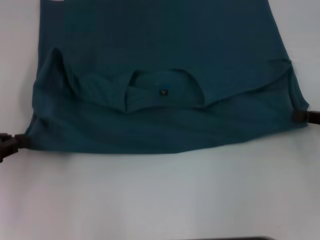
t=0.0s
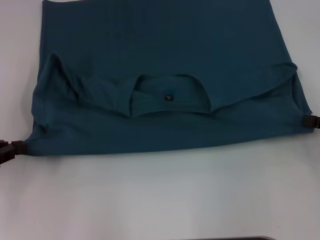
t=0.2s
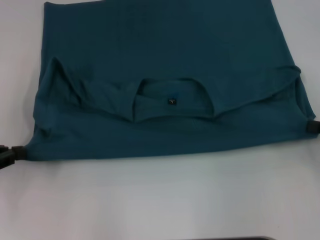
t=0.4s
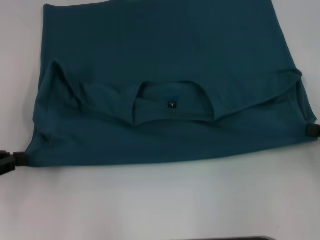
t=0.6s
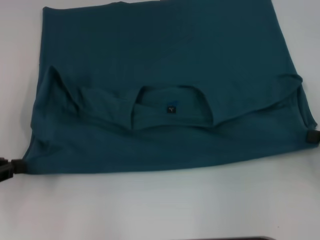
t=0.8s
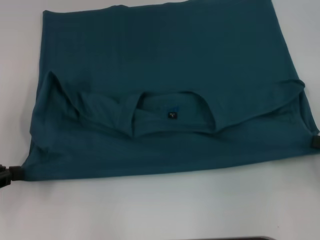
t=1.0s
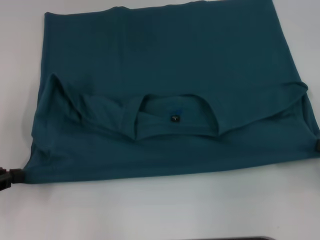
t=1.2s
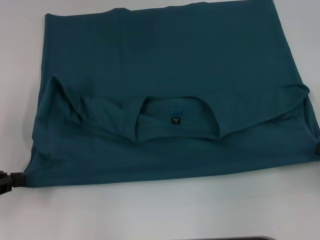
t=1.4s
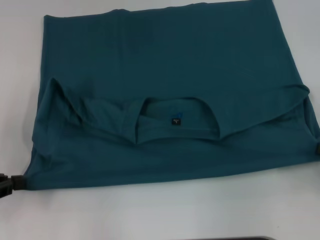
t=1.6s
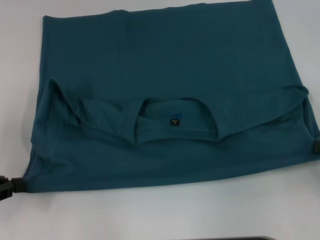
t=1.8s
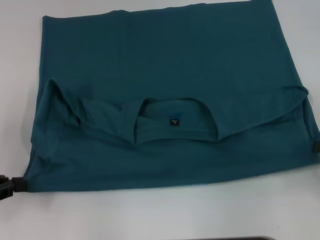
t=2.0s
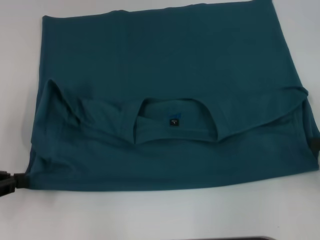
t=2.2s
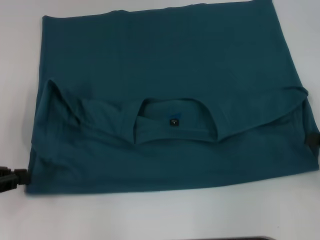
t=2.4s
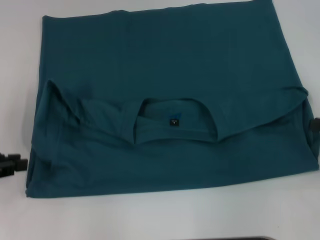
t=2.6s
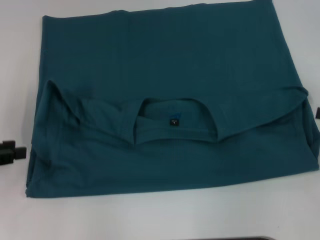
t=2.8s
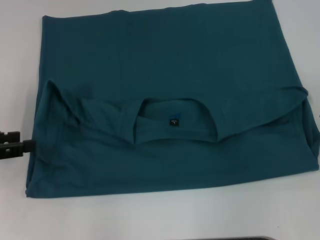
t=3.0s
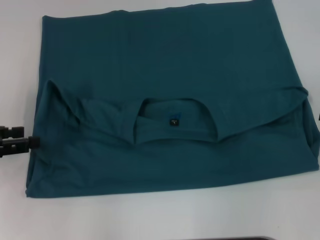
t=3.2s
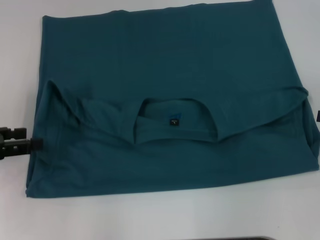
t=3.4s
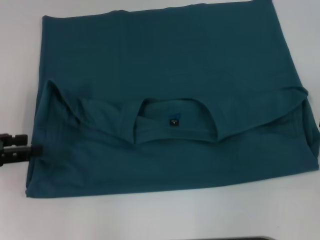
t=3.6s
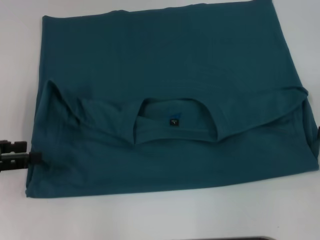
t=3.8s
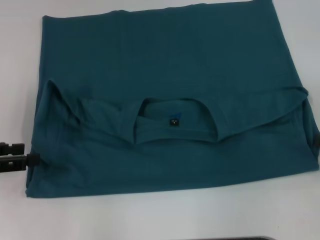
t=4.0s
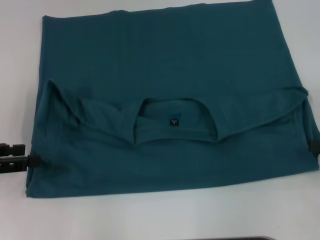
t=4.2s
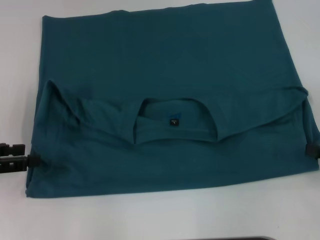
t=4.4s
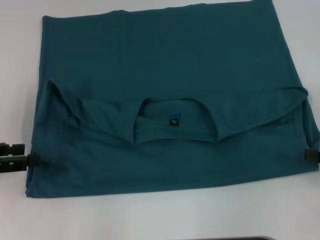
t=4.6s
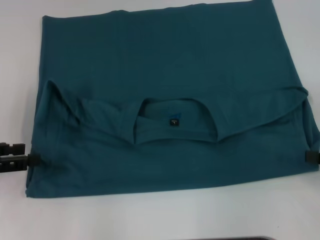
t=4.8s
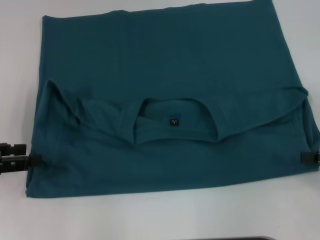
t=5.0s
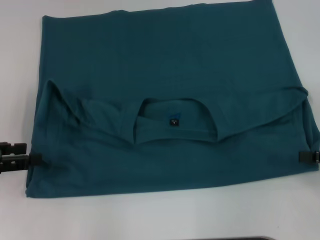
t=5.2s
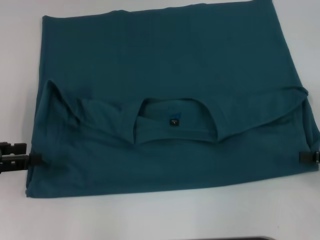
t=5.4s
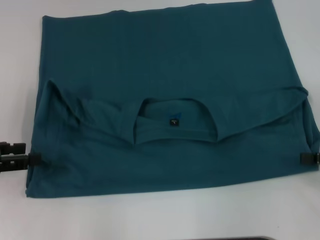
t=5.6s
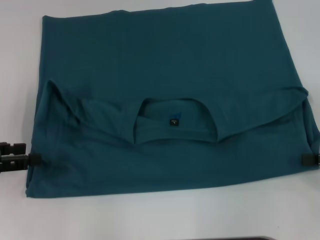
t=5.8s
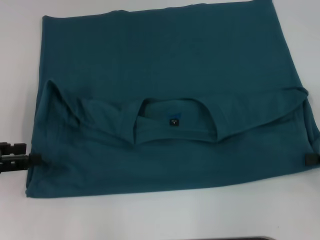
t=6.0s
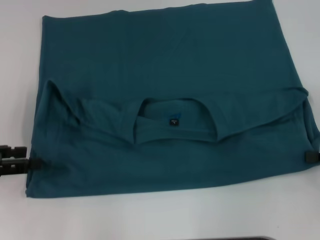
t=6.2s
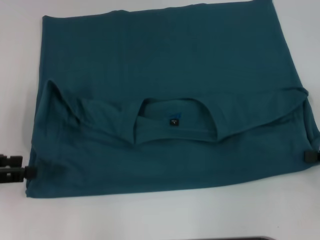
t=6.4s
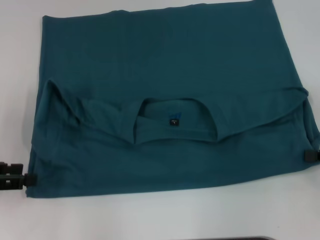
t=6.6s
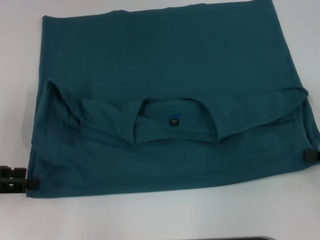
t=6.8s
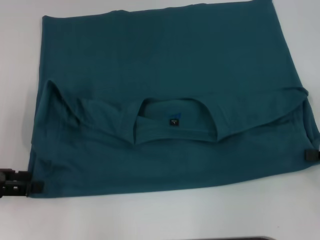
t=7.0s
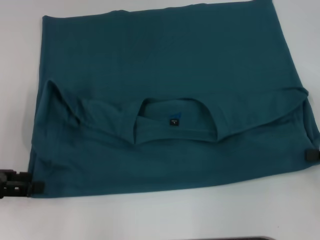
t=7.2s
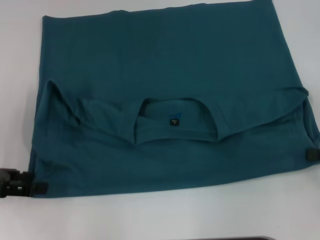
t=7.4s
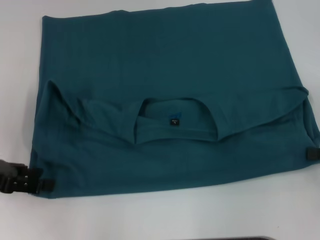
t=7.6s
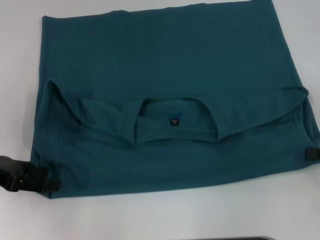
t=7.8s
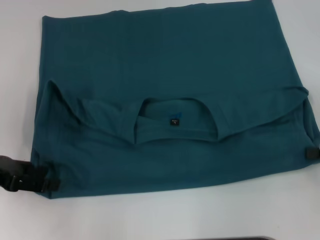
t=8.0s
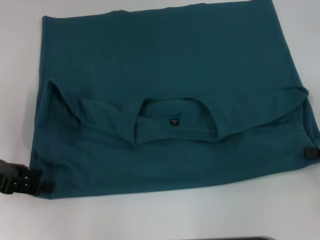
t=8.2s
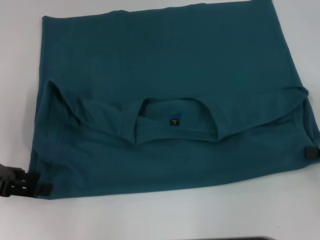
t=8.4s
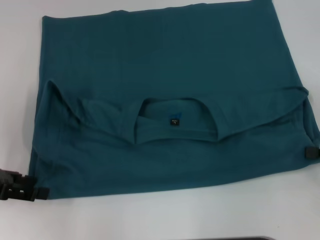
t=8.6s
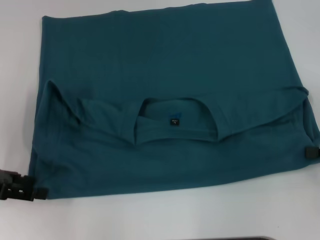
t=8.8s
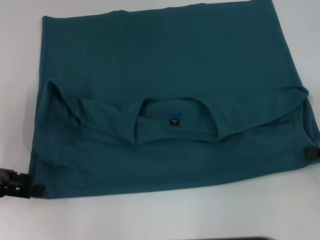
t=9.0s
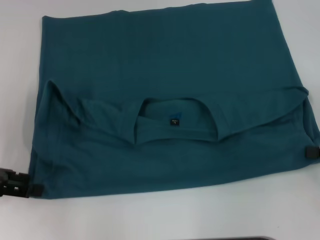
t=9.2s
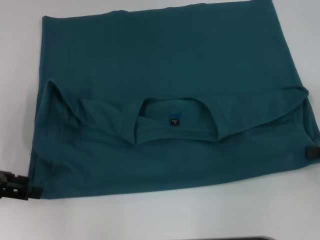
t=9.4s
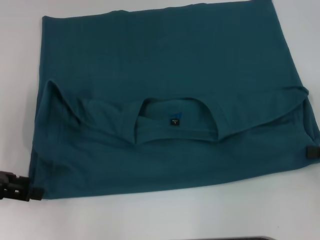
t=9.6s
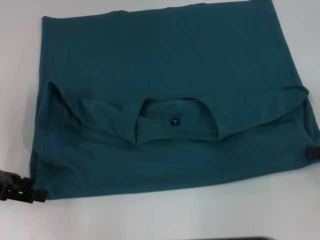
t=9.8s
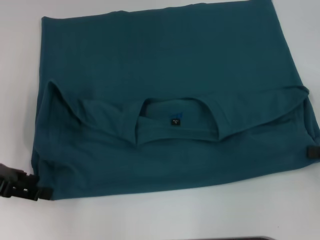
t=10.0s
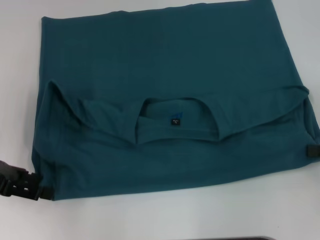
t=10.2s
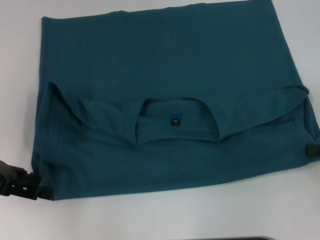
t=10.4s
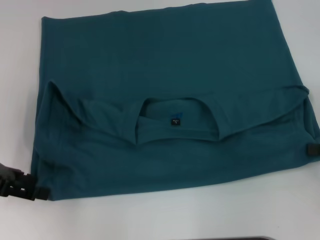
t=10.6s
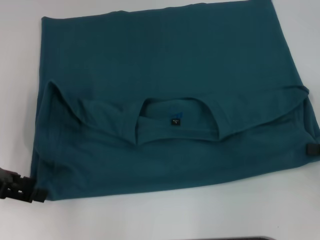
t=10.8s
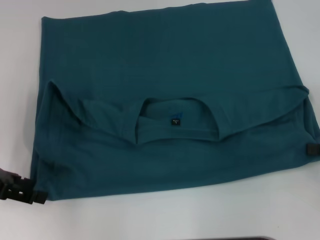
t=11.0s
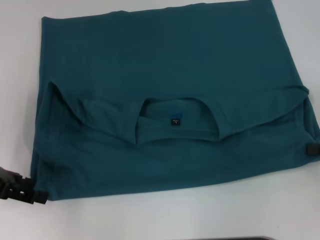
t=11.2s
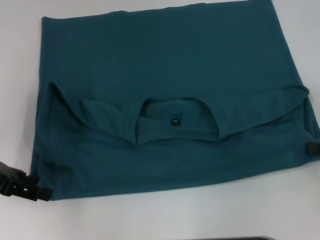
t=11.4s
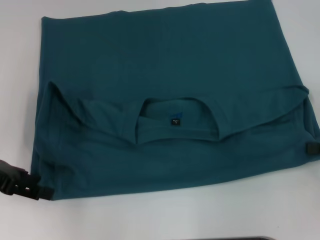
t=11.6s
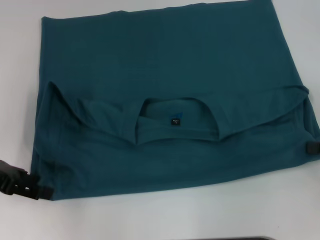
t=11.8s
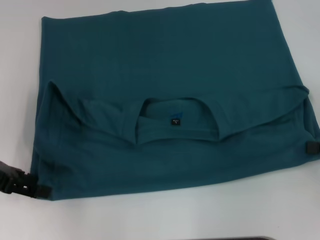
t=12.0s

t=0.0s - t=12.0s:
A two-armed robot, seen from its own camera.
t=0.0s - t=1.6s: The right gripper shifts about 5 cm backward.
t=1.6s - t=3.0s: The left gripper opens up. The right gripper travels forward by some 5 cm, and opens.
t=3.0s - t=4.4s: The grippers make only small movements.
t=4.4s - t=6.0s: Neither gripper changes place.
t=6.0s - t=7.6s: The right gripper closes up.
t=7.6s - t=10.4s: There are only small adjustments of the grippers.

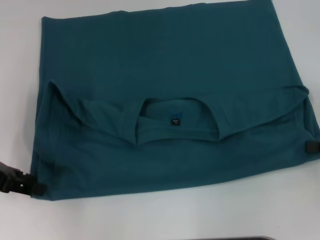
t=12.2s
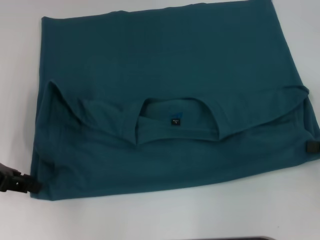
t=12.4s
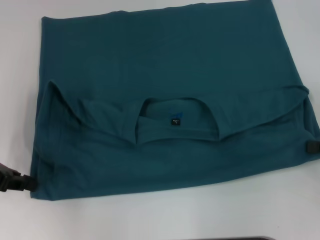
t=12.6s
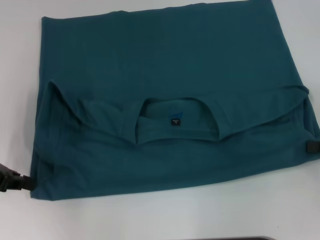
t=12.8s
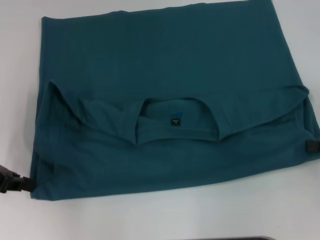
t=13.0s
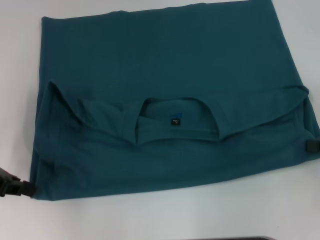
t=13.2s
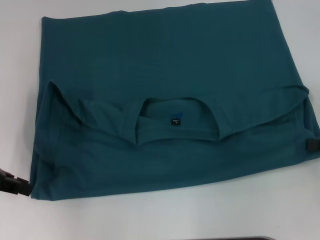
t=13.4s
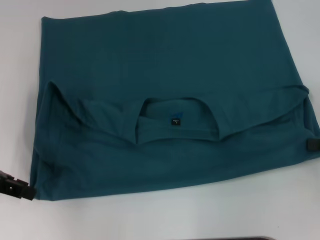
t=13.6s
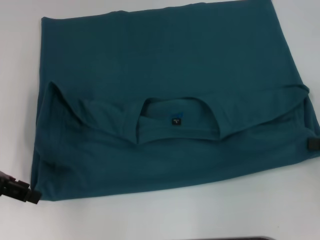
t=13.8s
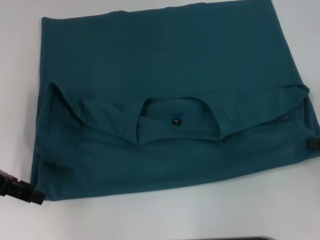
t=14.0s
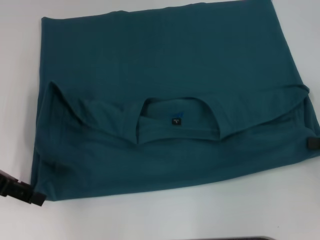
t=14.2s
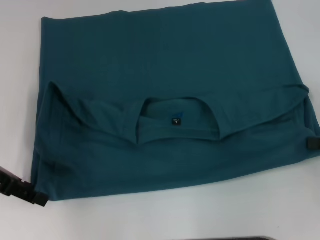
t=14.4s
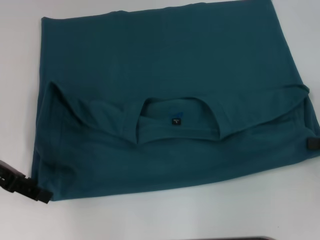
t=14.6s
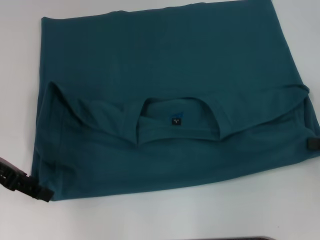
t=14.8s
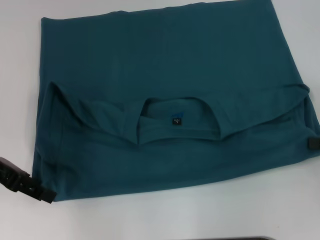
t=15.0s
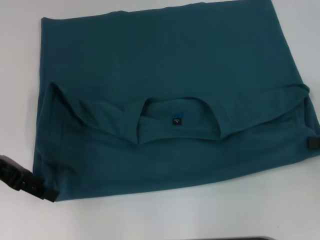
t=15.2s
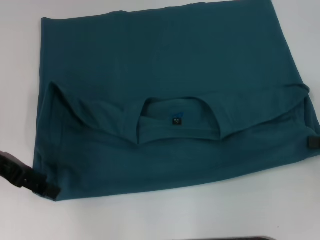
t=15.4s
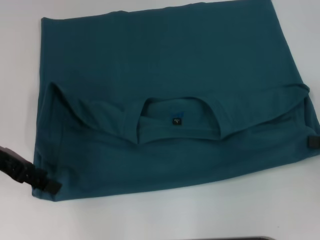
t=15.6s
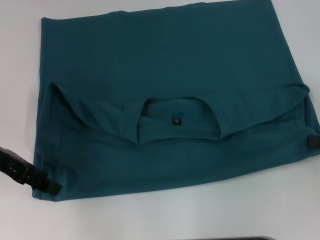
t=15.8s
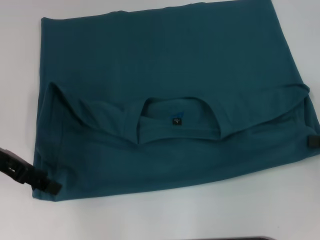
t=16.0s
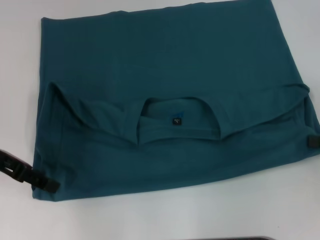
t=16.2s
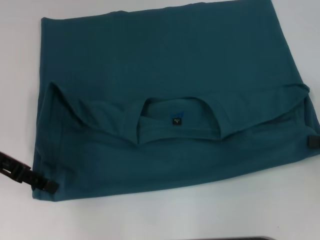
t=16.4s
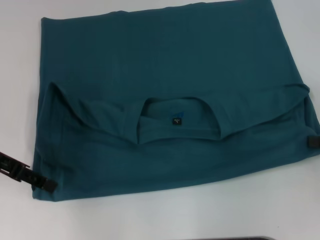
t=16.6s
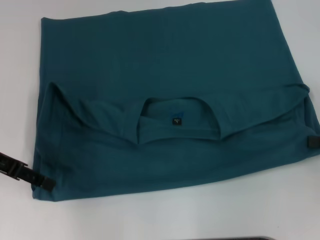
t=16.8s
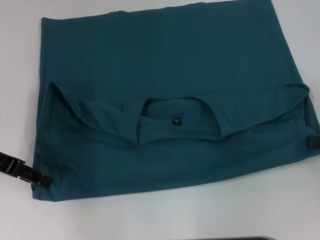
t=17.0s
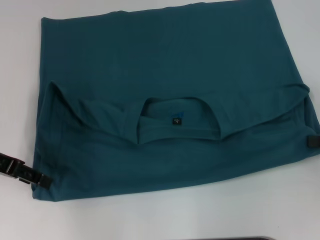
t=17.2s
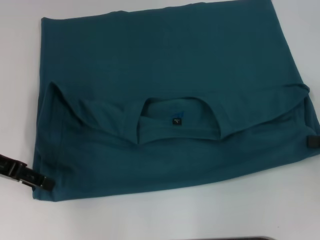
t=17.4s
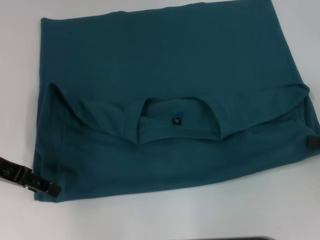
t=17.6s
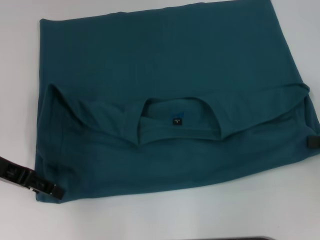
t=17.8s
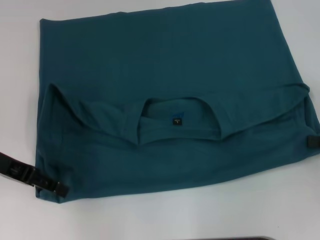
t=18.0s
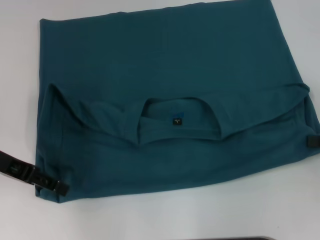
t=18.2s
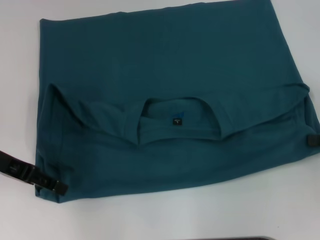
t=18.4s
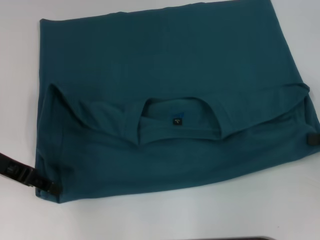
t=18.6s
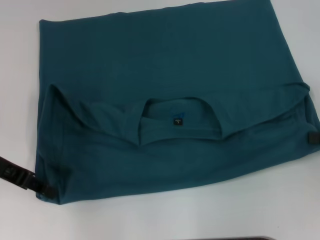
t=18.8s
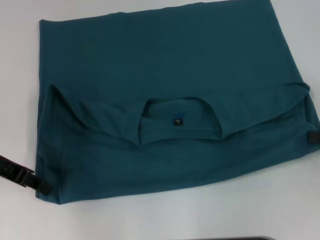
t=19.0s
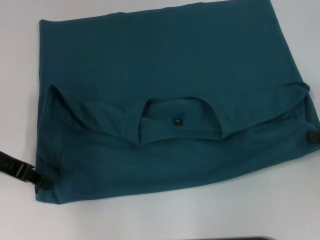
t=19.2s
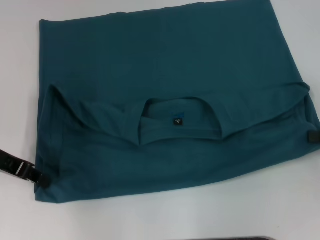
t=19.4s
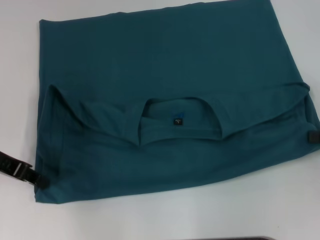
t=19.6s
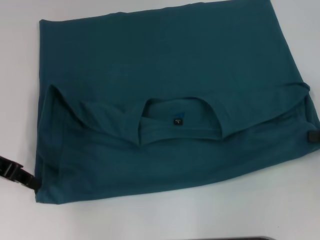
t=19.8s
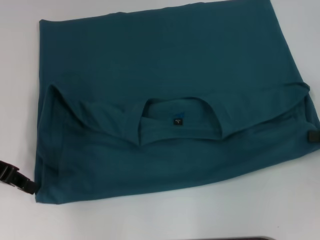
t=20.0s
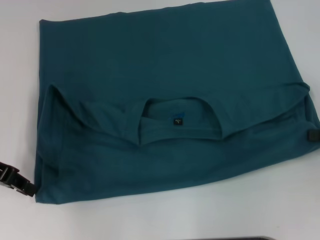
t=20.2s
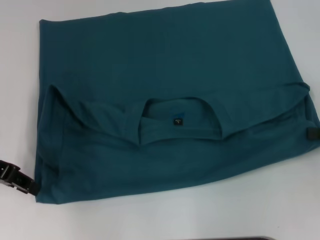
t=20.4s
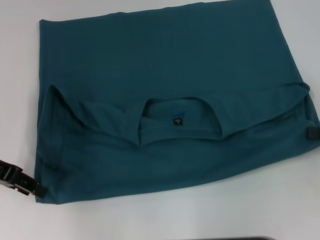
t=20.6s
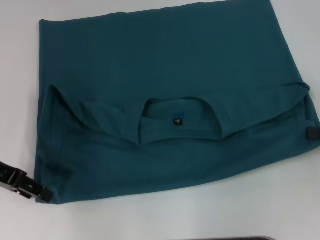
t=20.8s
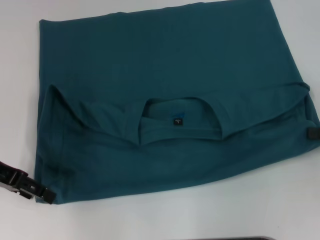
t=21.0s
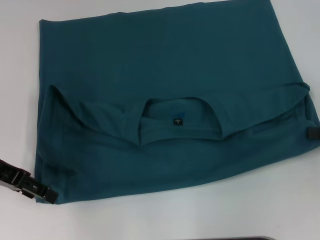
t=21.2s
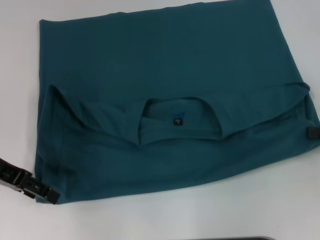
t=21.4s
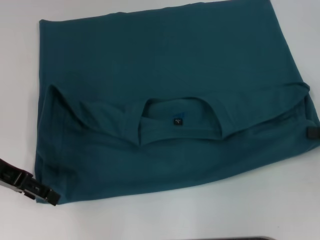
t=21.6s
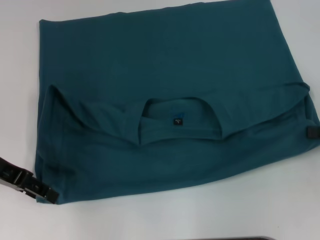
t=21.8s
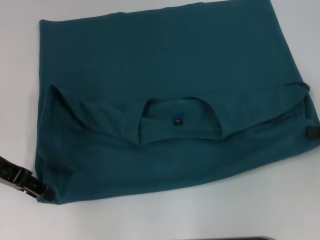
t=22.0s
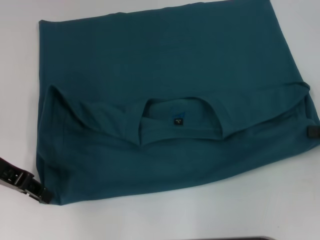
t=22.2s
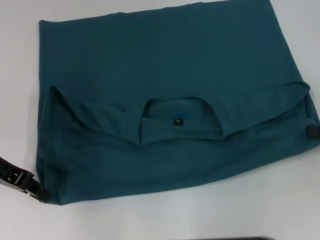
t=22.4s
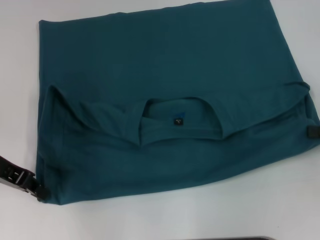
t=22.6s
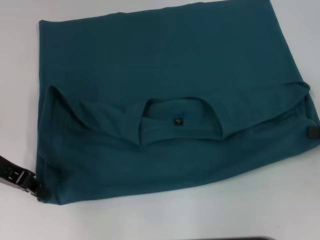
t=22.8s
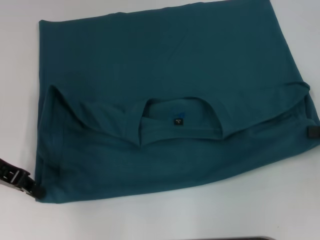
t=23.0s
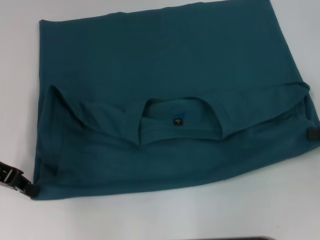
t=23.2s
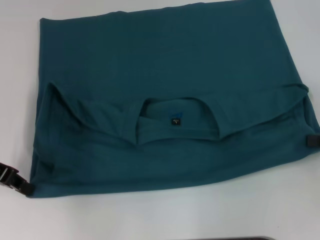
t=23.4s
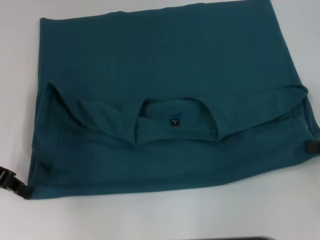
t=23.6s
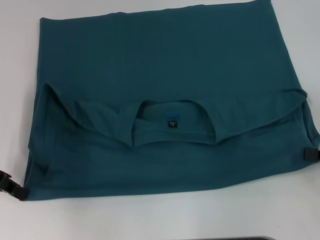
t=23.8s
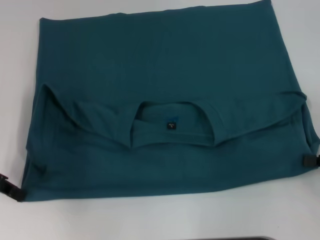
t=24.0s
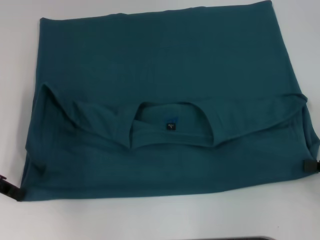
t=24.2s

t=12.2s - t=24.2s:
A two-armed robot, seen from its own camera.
t=12.2s - t=13.8s: The left gripper closes and opens again.
t=13.8s - t=18.2s: There are only small adjustments of the grippers.
t=18.2s - t=19.8s: The left gripper closes its fingers.
t=19.8s - t=21.2s: The left gripper opens.
t=21.2s - t=22.6s: The left gripper closes.
t=22.6s - t=24.2s: The right gripper heads backward, covering some 5 cm.
